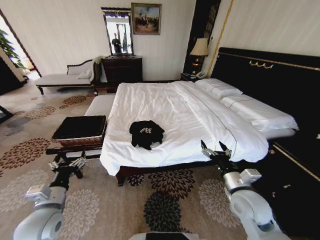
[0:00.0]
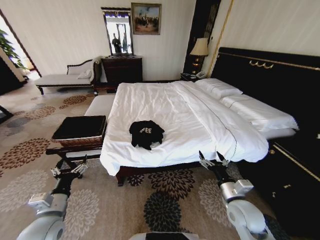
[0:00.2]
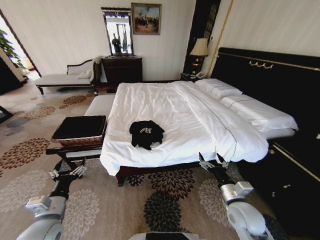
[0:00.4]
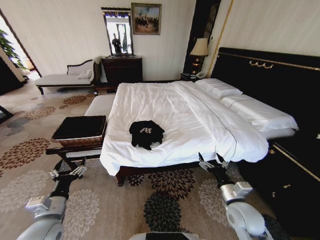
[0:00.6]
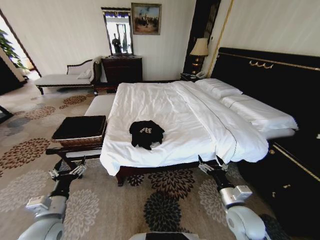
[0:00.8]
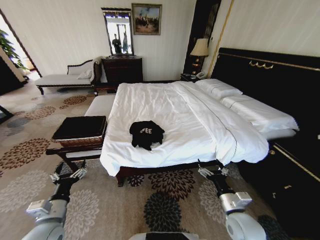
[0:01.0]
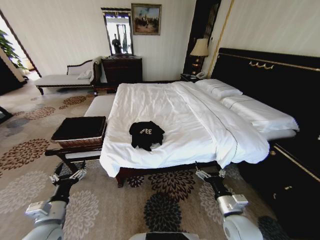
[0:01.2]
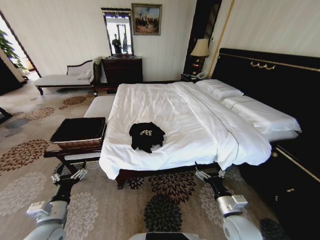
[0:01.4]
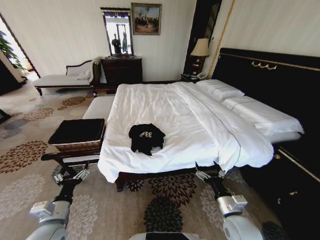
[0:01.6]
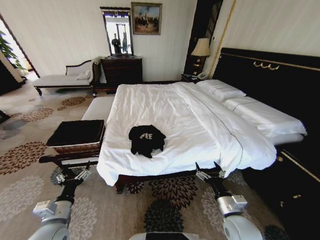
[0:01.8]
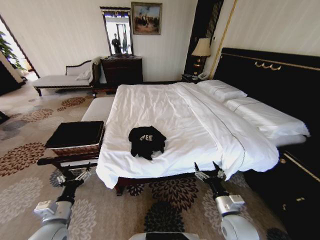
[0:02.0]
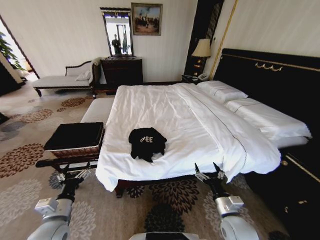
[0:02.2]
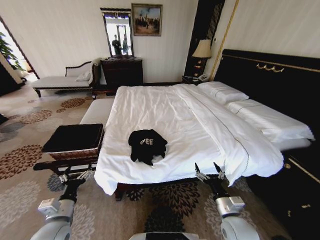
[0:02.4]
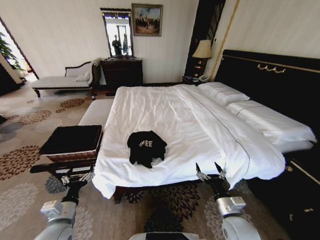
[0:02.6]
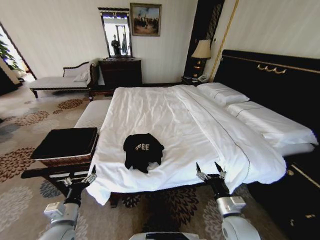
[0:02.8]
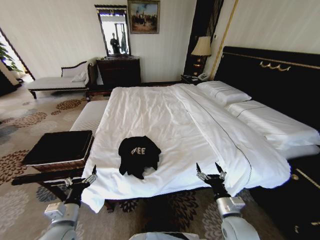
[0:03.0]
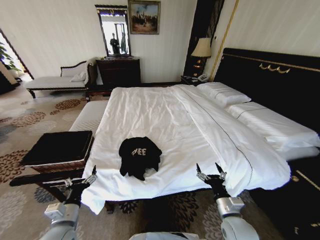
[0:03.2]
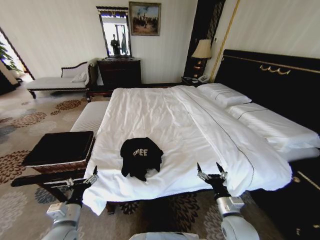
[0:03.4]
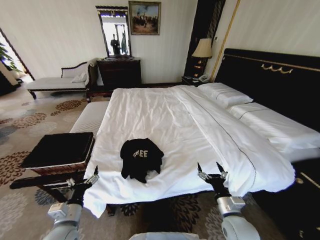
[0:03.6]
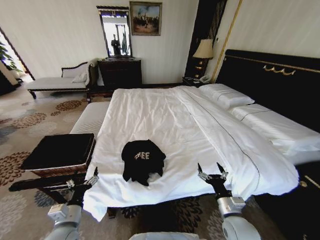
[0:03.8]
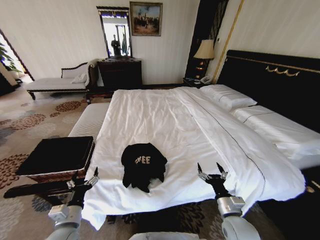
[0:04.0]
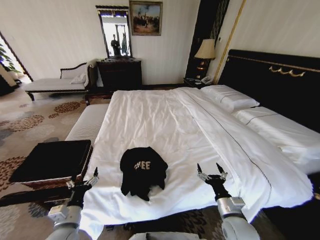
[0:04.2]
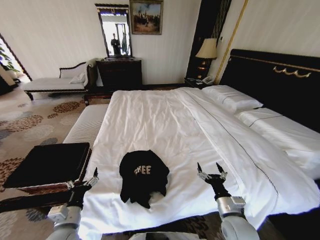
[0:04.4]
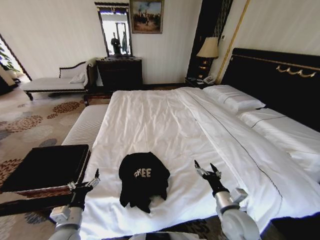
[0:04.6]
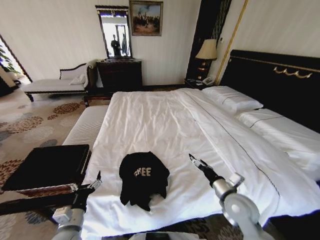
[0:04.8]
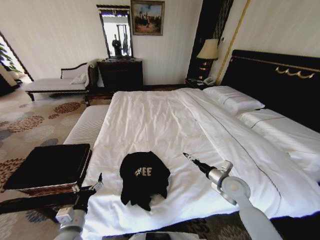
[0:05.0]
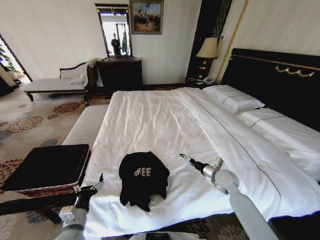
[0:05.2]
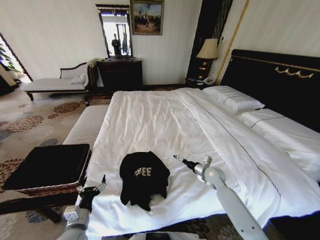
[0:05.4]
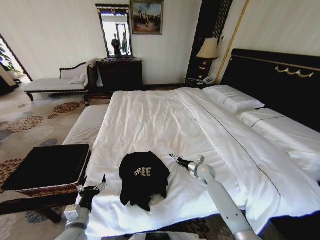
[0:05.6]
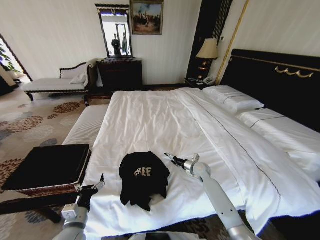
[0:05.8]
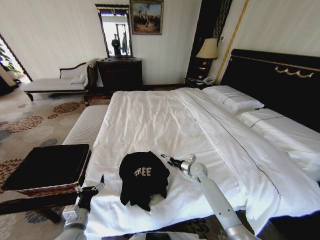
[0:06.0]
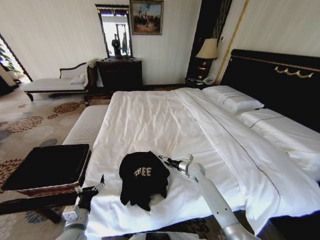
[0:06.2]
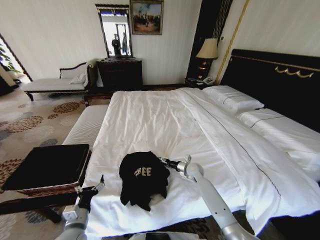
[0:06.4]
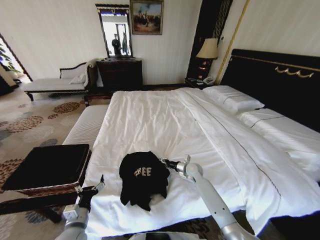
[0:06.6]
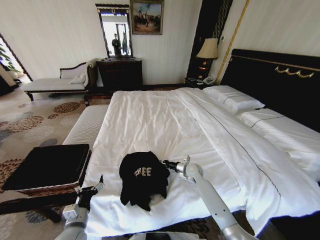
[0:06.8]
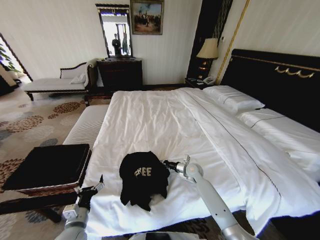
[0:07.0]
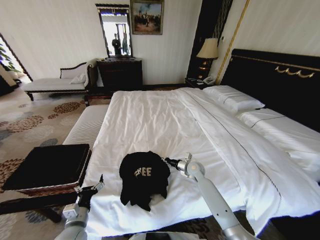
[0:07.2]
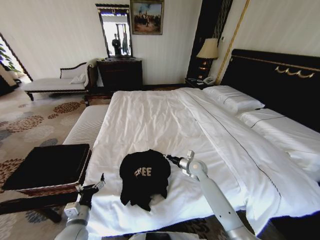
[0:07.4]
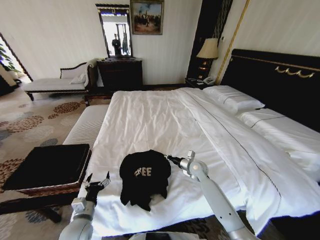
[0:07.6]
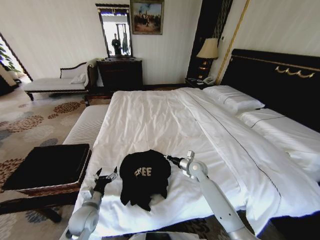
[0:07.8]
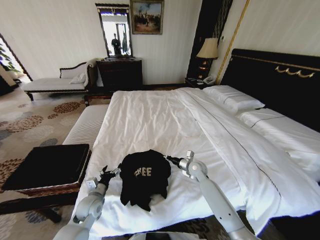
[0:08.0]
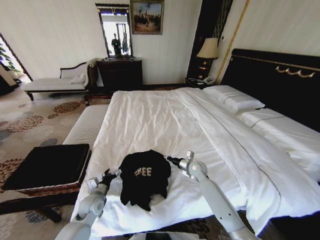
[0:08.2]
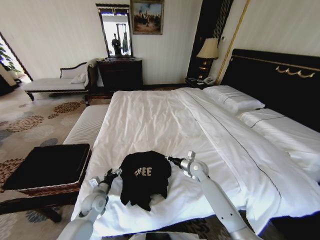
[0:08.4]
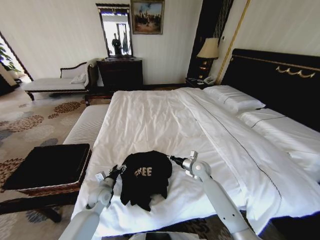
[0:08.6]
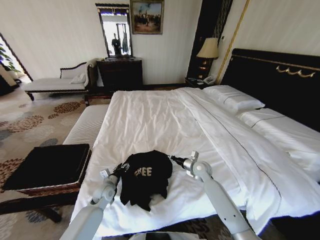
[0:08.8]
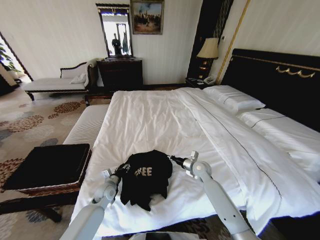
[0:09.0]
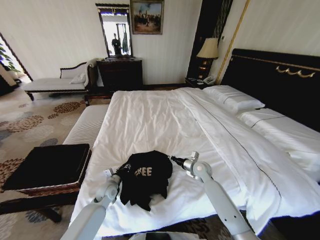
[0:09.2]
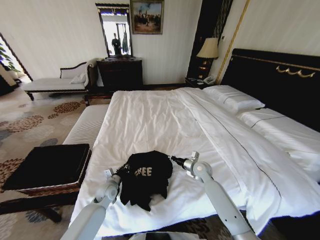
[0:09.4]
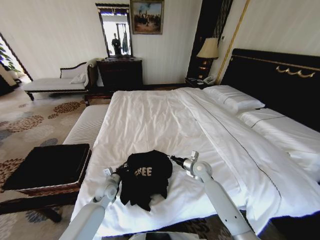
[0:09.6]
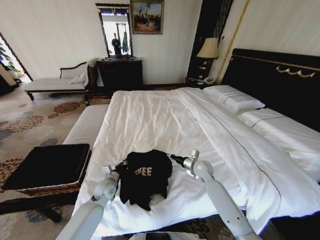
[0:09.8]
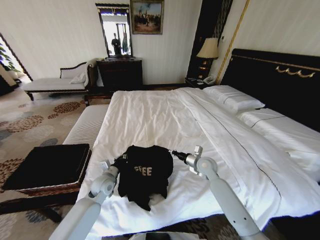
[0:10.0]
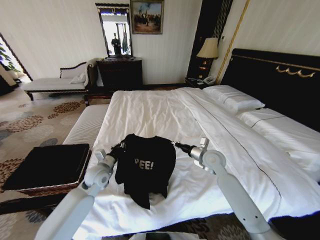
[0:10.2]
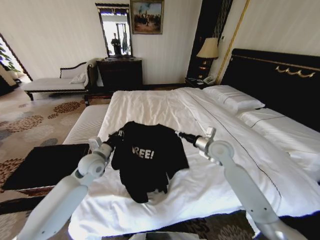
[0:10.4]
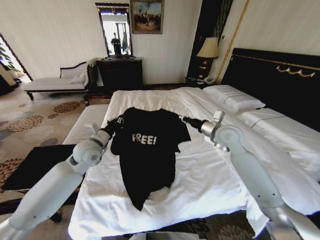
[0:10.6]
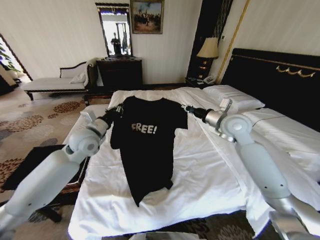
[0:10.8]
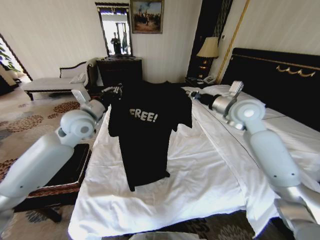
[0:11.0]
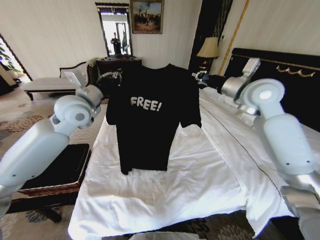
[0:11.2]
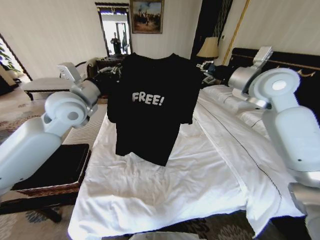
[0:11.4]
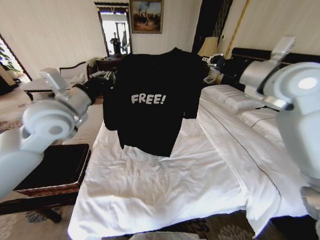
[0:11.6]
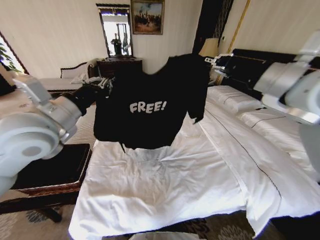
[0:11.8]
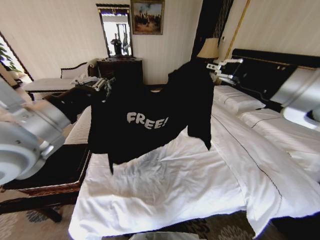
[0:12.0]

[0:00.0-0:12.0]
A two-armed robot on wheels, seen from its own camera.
Task of the whole recording: Fold the clothes on the bed and place them into the basket.
0:04.4 to 0:06.0: The right gripper shifts about 25 cm forward.
0:06.0 to 0:07.6: The right gripper closes.
0:07.6 to 0:09.0: The left gripper travels forward by some 15 cm, and closes.
0:09.0 to 0:10.4: Both grippers move upward, about 15 cm. The left gripper closes up.
0:10.4 to 0:12.0: The two grippers go approximately 30 cm upward and backward.

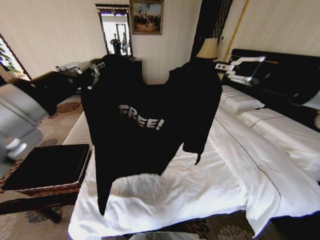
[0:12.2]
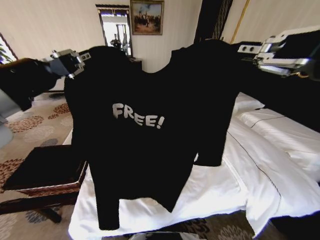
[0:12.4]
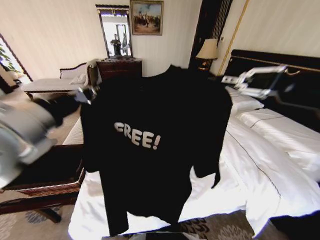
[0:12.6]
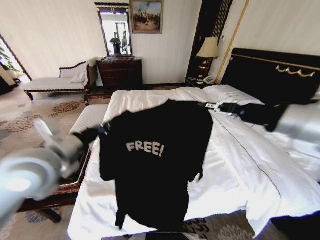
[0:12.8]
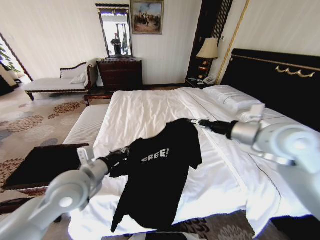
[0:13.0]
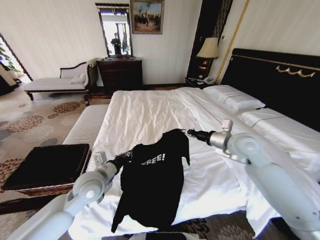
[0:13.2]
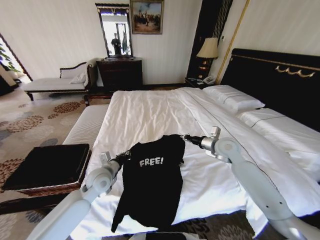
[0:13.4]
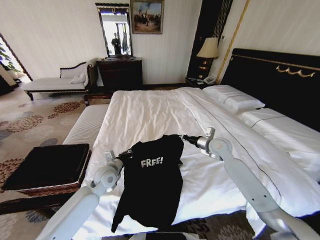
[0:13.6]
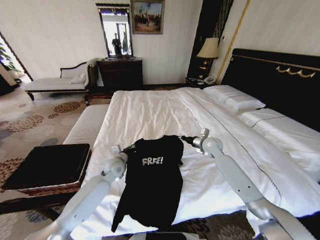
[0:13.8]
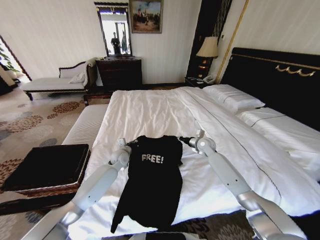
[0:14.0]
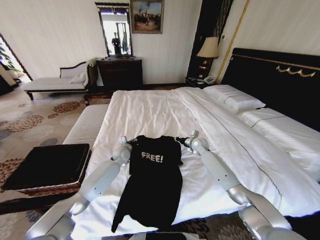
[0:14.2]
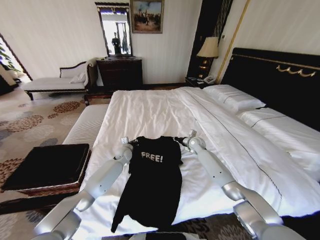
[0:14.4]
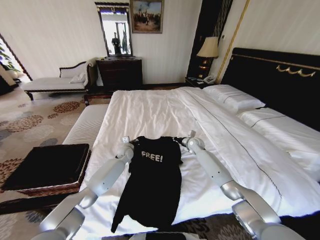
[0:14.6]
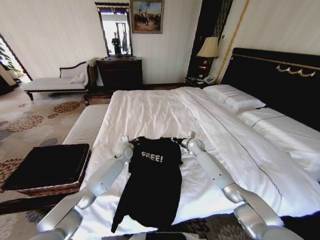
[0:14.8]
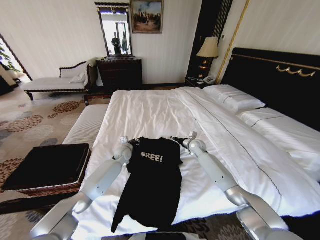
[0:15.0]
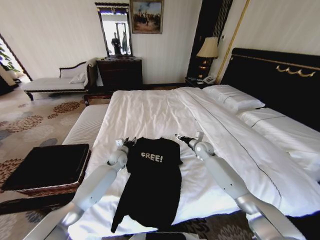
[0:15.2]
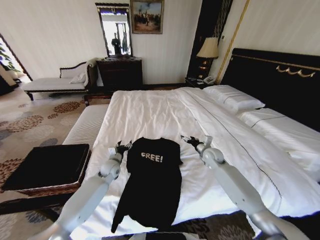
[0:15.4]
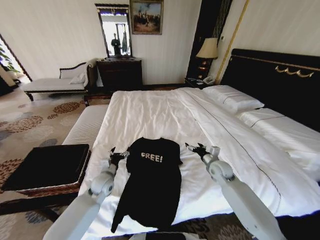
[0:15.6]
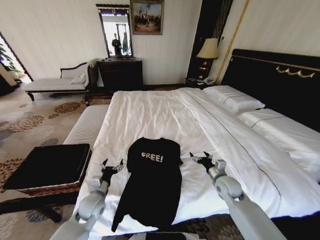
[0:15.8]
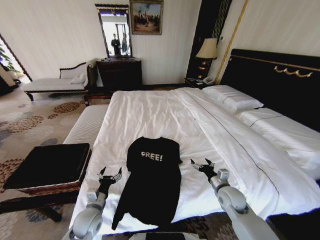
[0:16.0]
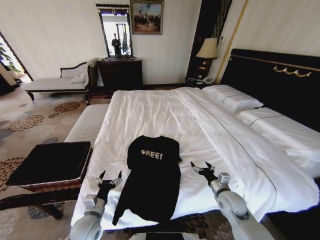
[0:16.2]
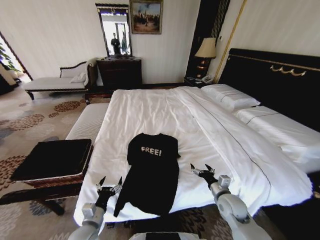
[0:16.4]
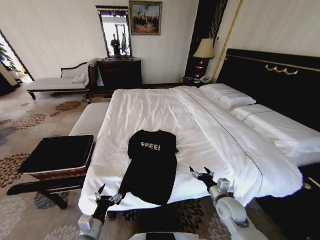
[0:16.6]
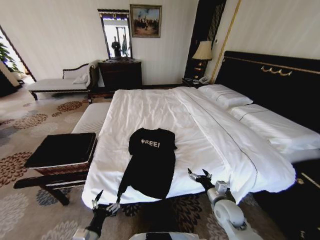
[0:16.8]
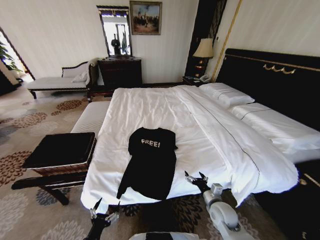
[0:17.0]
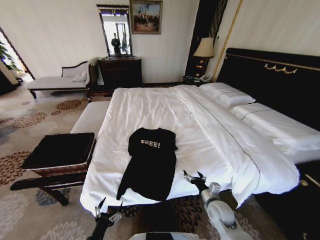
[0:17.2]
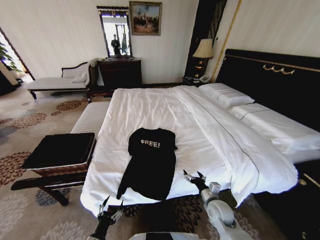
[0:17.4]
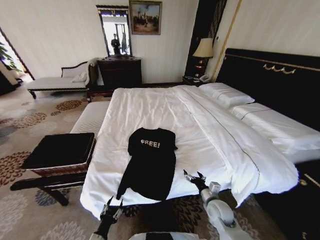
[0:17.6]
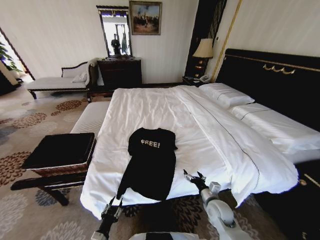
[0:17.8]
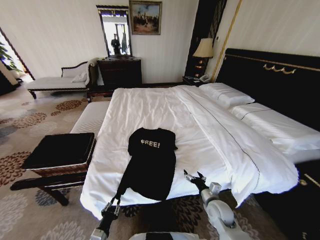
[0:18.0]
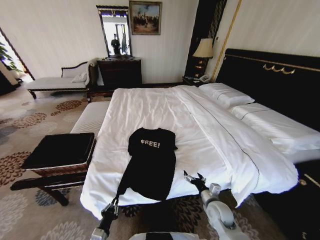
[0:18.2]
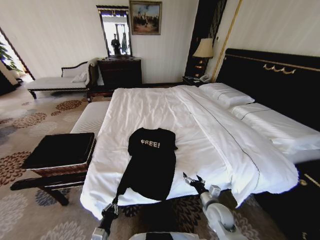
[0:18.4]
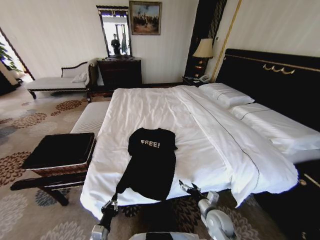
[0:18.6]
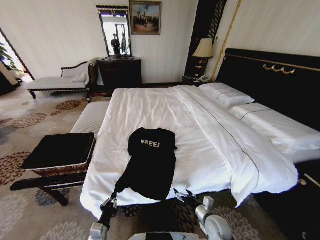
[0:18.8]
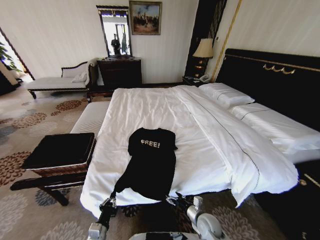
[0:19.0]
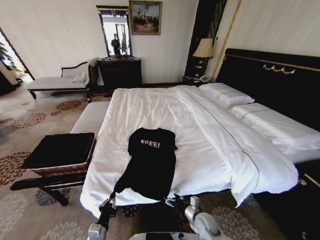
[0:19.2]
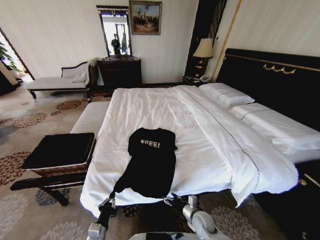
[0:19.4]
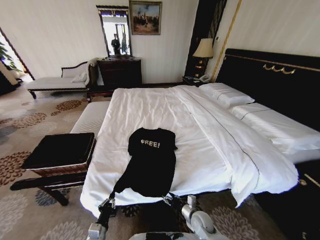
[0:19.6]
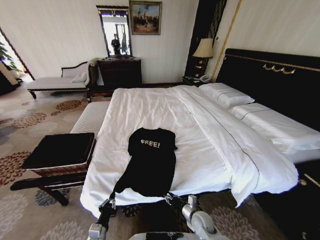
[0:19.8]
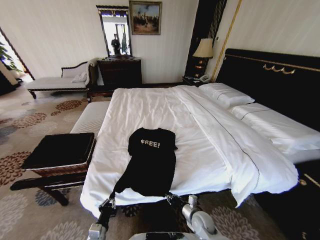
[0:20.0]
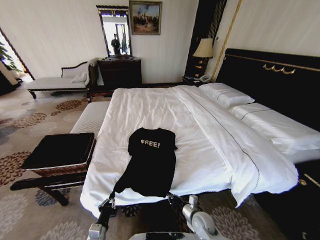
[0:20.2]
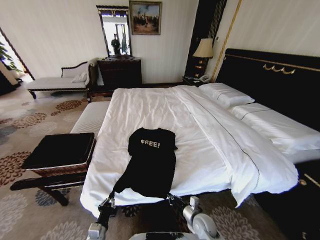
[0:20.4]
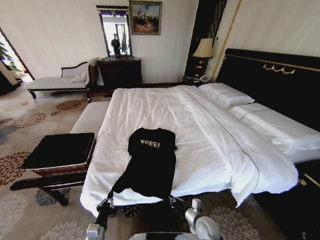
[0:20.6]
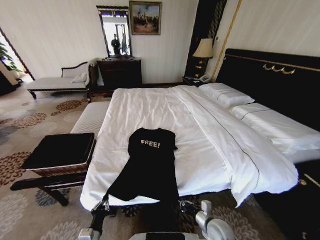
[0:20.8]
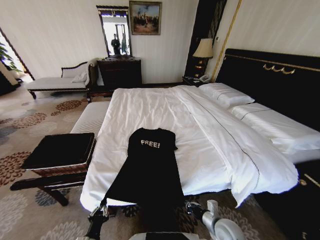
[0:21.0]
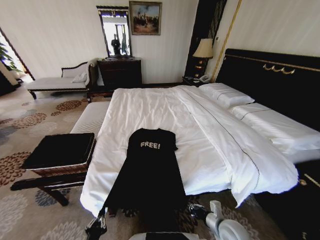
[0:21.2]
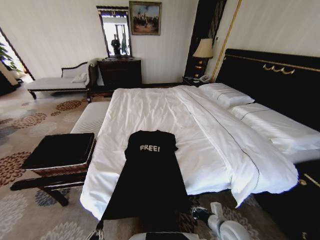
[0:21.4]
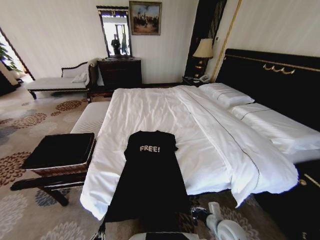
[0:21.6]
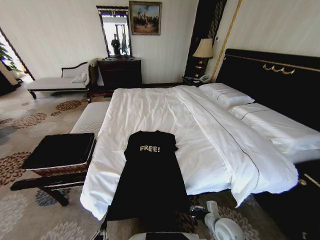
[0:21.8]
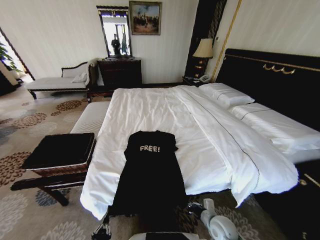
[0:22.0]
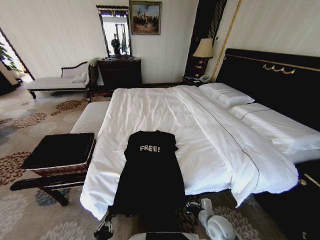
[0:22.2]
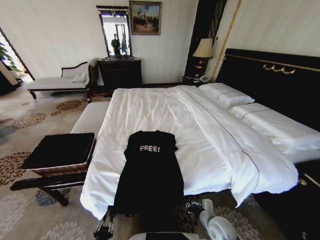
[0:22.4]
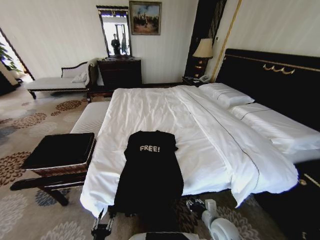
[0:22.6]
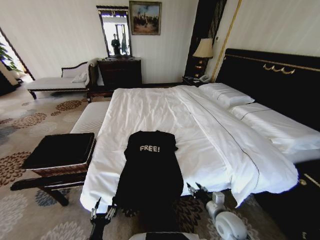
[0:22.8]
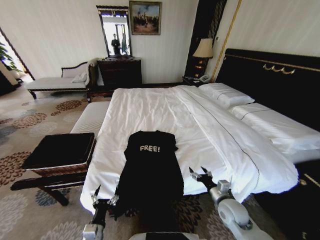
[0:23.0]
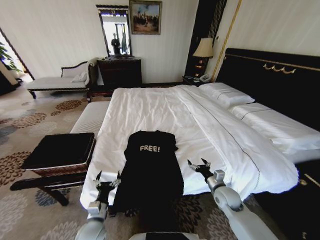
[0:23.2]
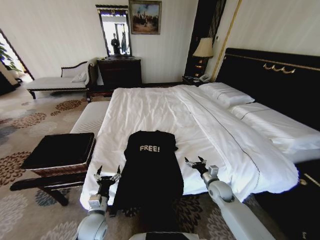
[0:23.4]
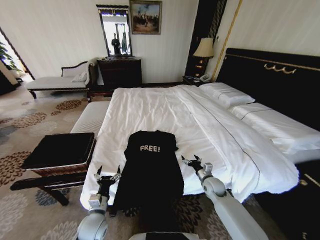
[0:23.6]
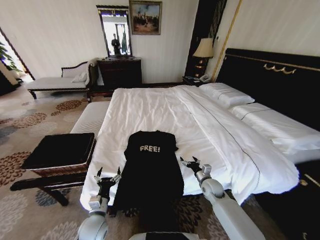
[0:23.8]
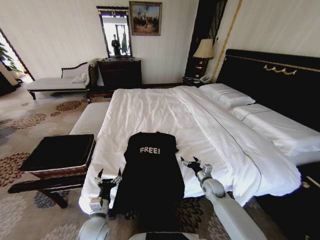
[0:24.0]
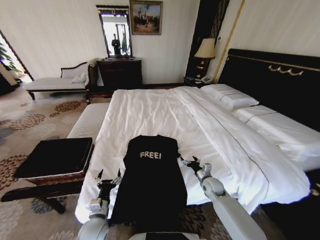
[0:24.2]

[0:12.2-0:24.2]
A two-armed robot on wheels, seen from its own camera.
Task of the whole recording: Fold the clothes on the bed and place them into the basket.
0:12.2 to 0:13.8: The two grippers go approximately 40 cm downward and forward.
0:13.8 to 0:15.2: The left gripper travels forward by approximately 10 cm, and opens its fingers. The right gripper heads downward, covering some 5 cm, and opens its fingers.
0:15.2 to 0:16.6: The grippers both shift backward by roughly 30 cm. The left gripper opens, while the right gripper opens its fingers.
0:16.6 to 0:18.2: The right gripper changes place by approximately 5 cm, while the left gripper heads downward, covering roughly 10 cm, and closes up.
0:18.2 to 0:19.8: The right gripper heads downward and to the left, covering some 10 cm, and closes.
0:19.8 to 0:21.2: The right gripper heads upward and to the right, covering about 10 cm, and closes. Meanwhile the left gripper travels backward by about 10 cm.
0:21.2 to 0:22.6: The left gripper heads downward, covering roughly 5 cm, and opens its fingers.
0:22.6 to 0:24.2: The right gripper goes roughly 20 cm forward, and opens. The left gripper travels forward and upward by about 15 cm, and opens its fingers.
